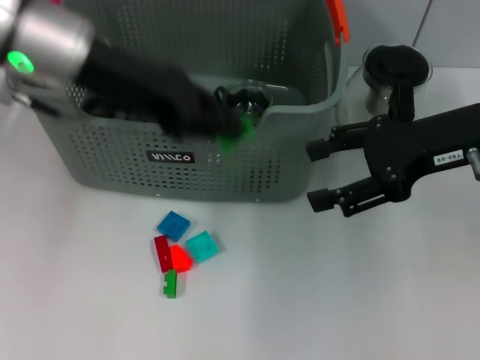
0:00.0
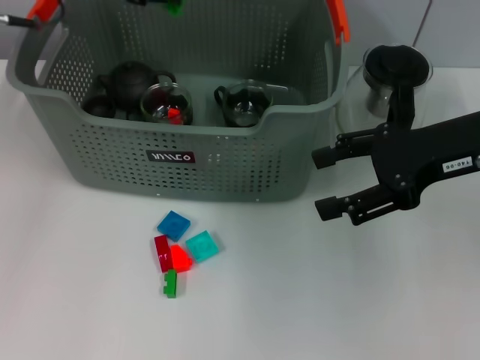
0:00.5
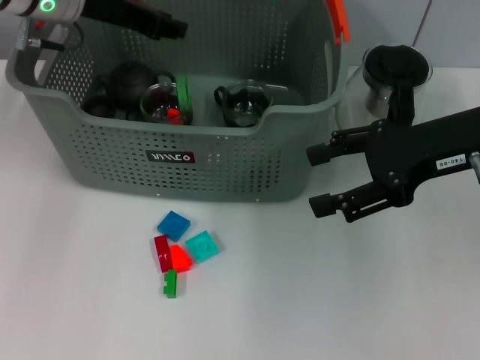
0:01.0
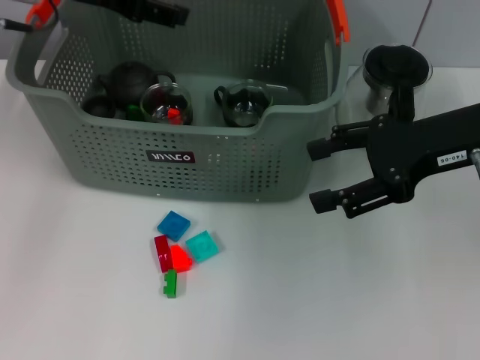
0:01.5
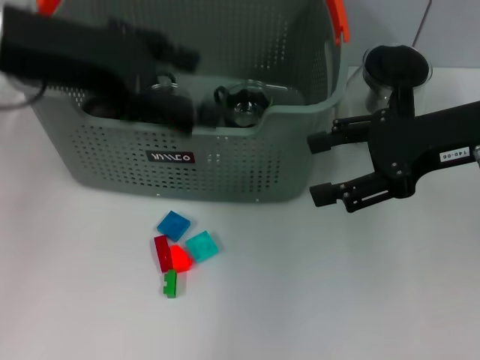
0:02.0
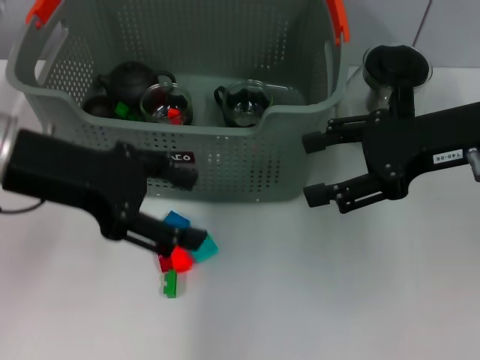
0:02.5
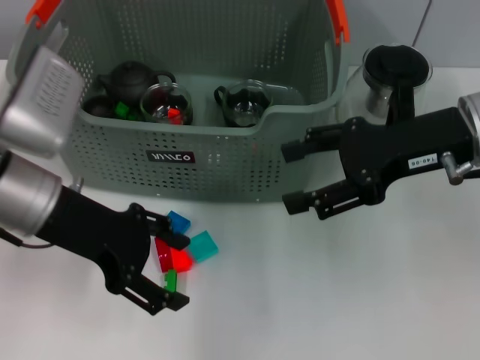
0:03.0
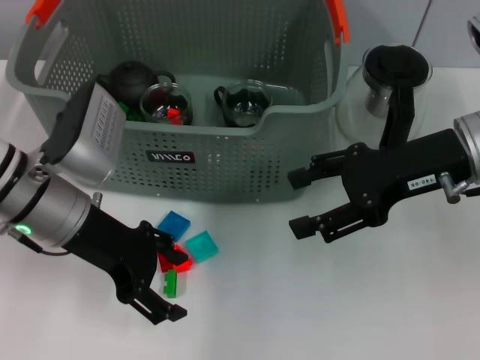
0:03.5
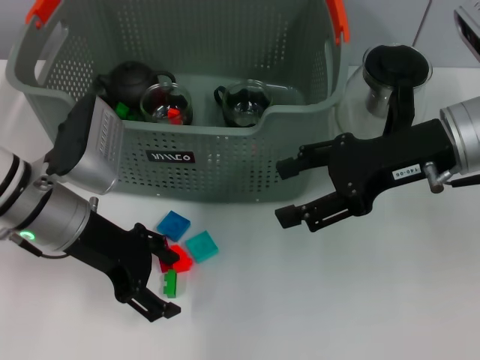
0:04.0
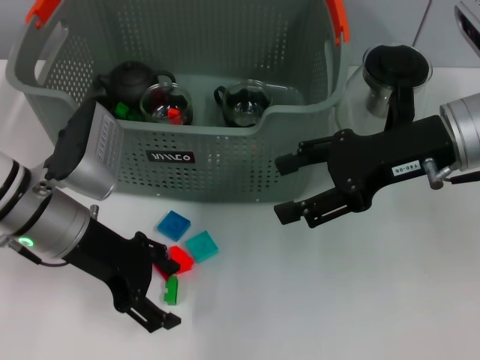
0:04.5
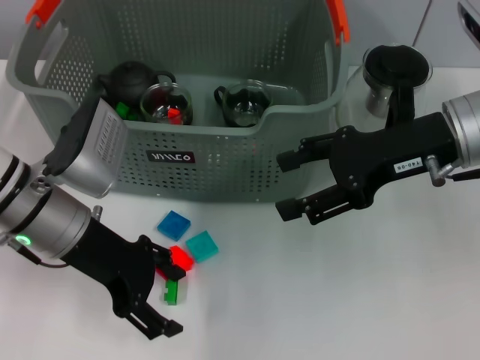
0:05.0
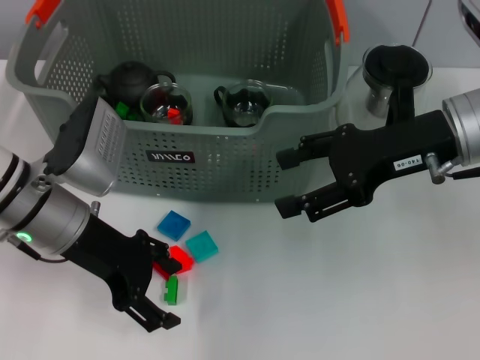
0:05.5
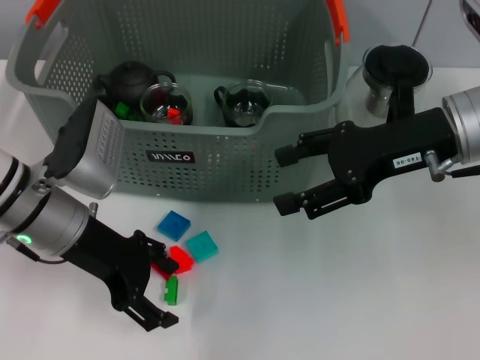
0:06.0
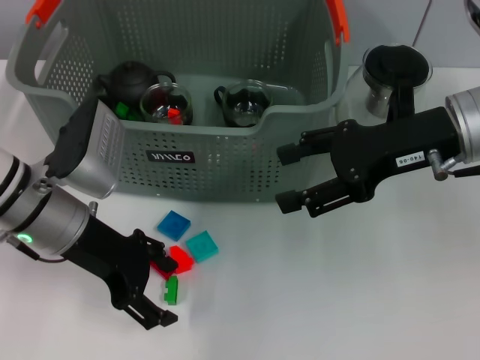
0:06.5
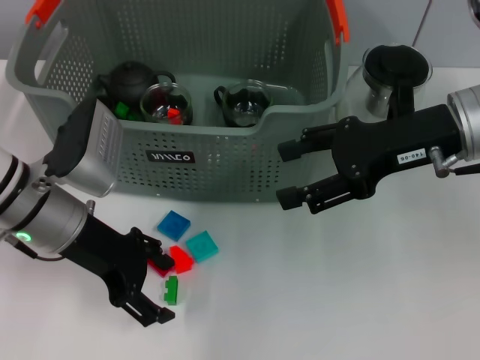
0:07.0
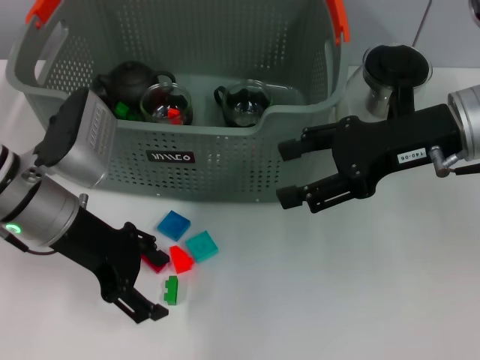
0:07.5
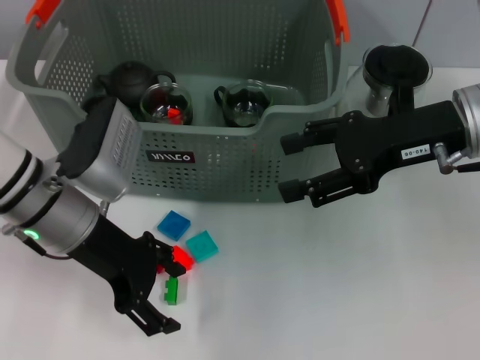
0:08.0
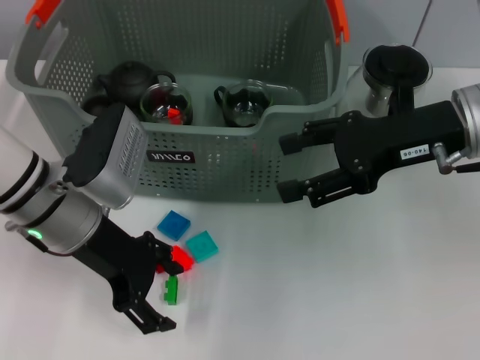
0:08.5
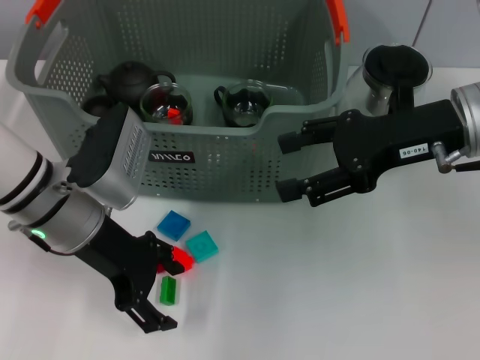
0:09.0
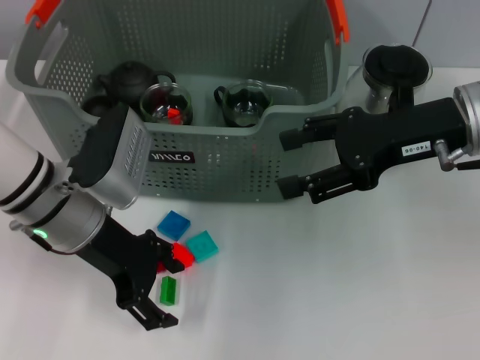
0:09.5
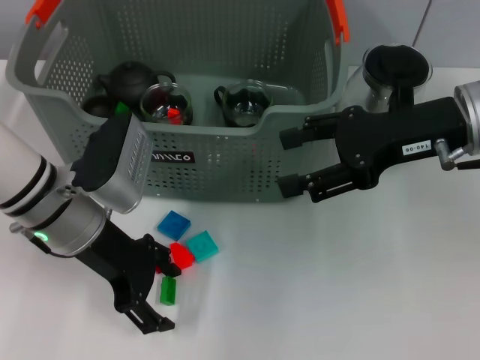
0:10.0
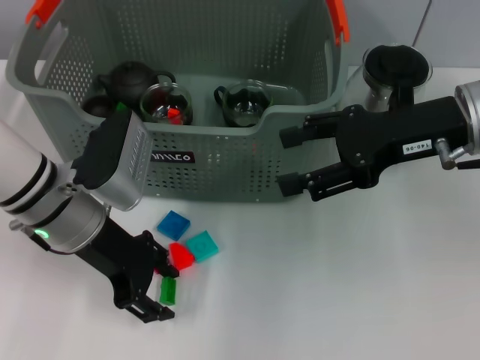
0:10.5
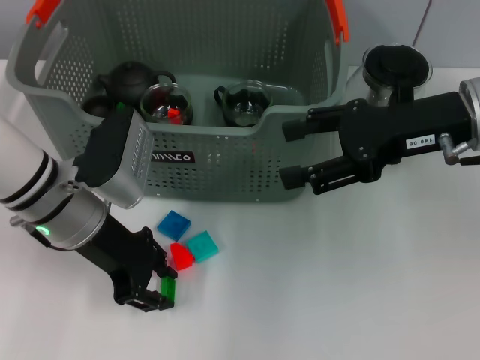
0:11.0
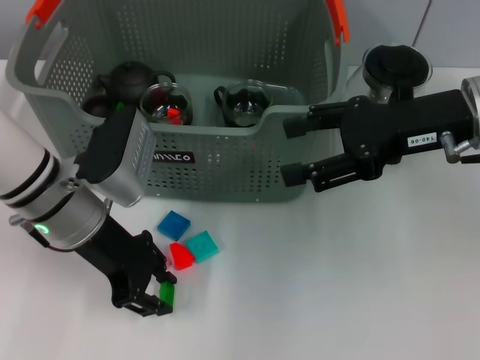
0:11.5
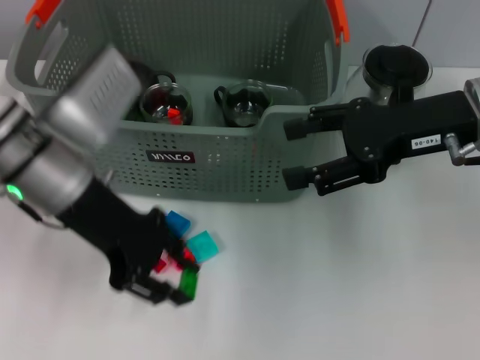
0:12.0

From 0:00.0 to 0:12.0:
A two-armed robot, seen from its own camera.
Task of the whole recording: pick up the teacup on the table and place it into the storage bin, pick up the block on the table and place it into the storage bin.
Step, from 0:00.0 to 0:01.0: Place the green block in the storage box with left gripper.
Step, from 0:01.5 to 0:11.5: Grasp the green block with left gripper.
From 0:00.0 to 0:02.0: The left gripper goes about 5 cm backward, and opens.
From 0:02.0 to 0:04.0: The left gripper heads downward, covering some 20 cm.
From 0:04.0 to 0:10.0: There are only small adjustments of the grippers.
From 0:10.0 to 0:12.0: The left gripper shifts approximately 5 cm upward, and closes its fingers.

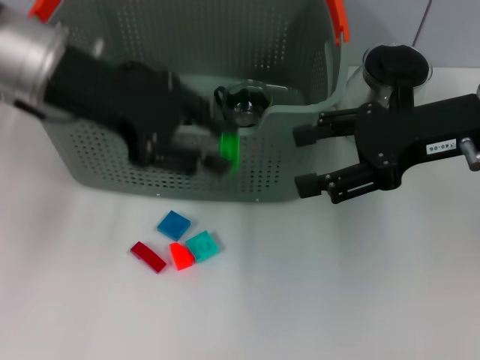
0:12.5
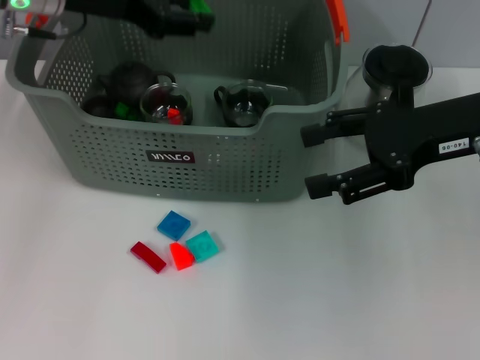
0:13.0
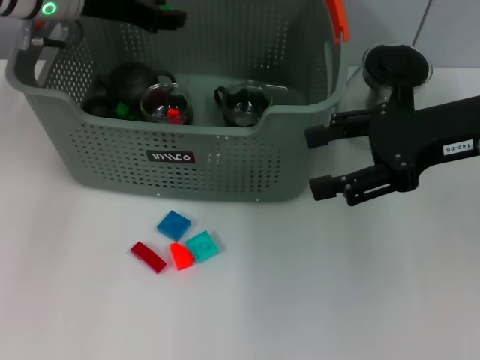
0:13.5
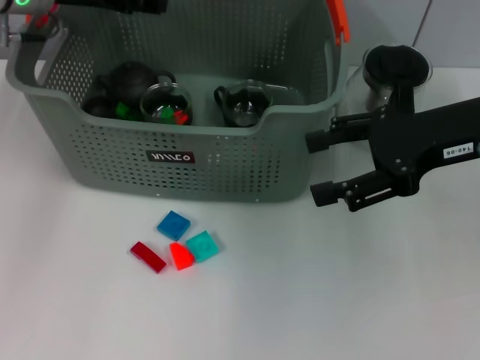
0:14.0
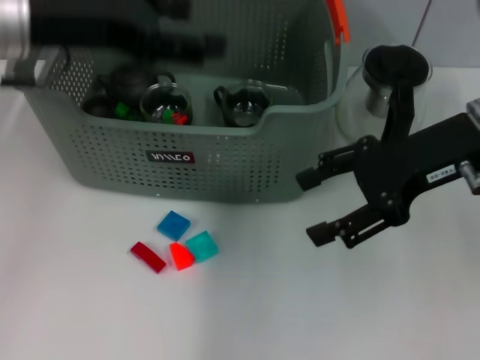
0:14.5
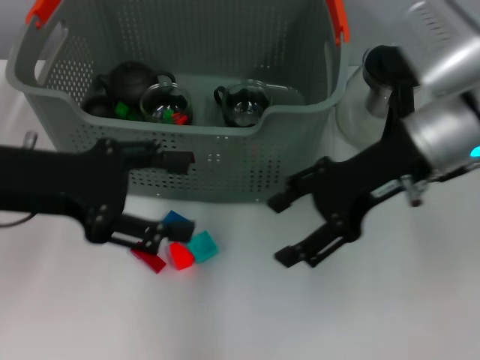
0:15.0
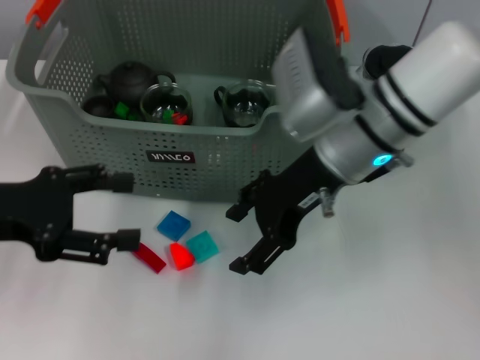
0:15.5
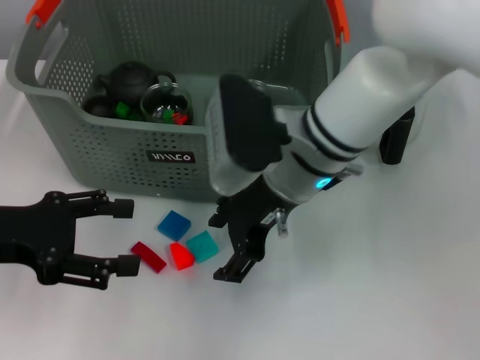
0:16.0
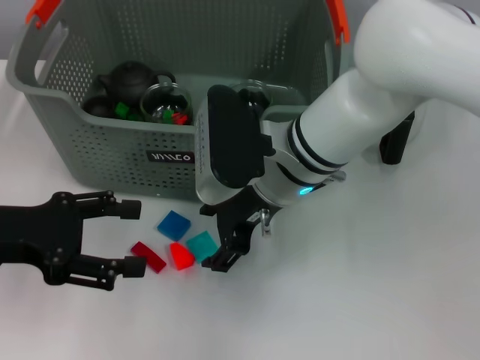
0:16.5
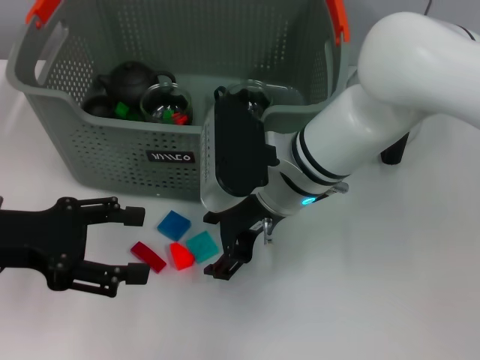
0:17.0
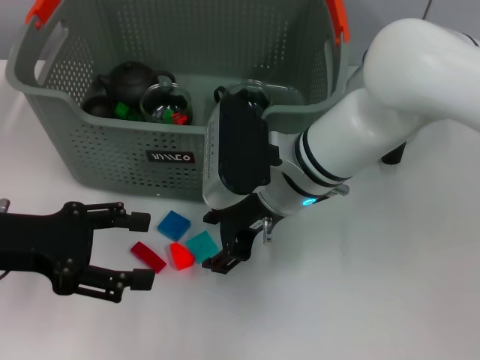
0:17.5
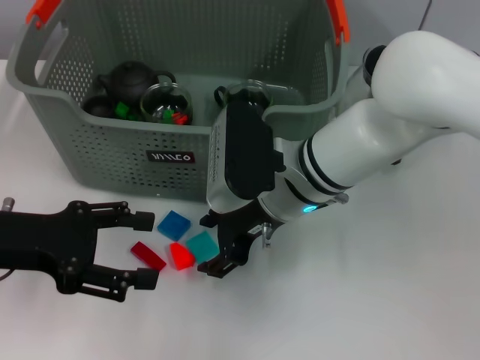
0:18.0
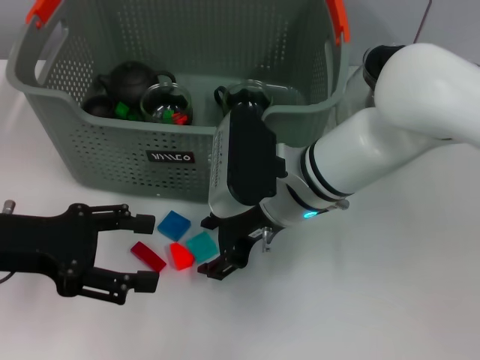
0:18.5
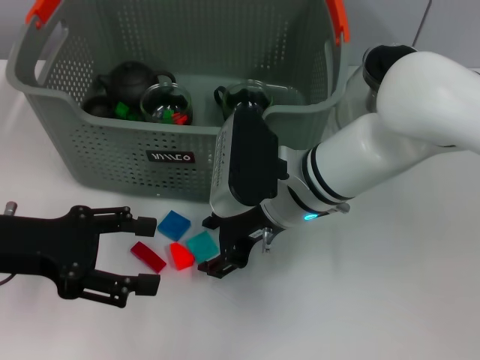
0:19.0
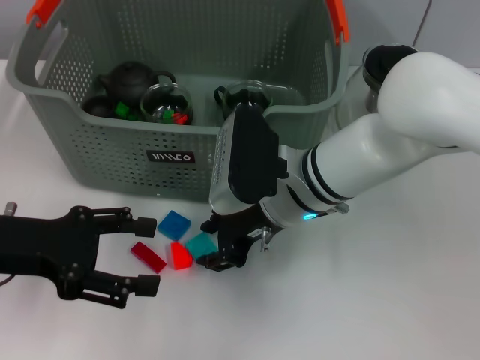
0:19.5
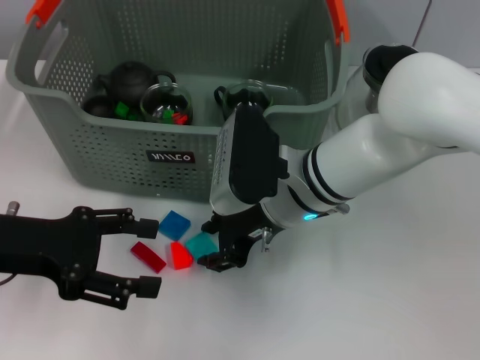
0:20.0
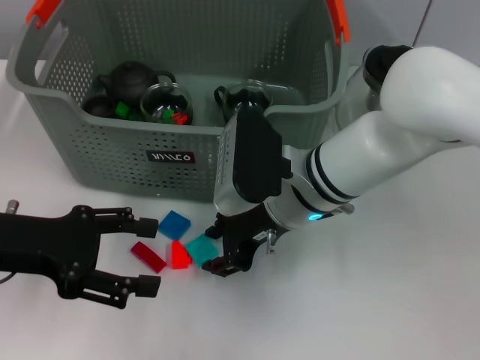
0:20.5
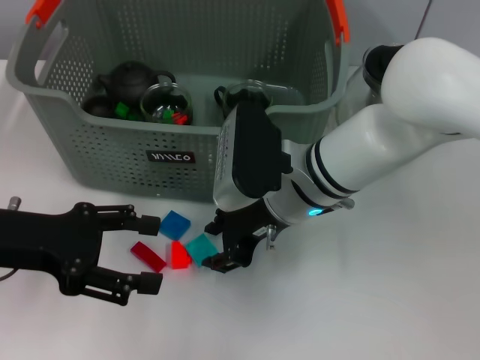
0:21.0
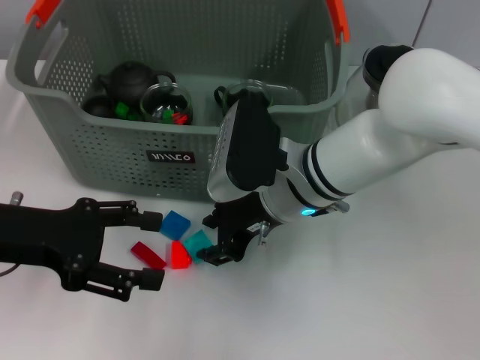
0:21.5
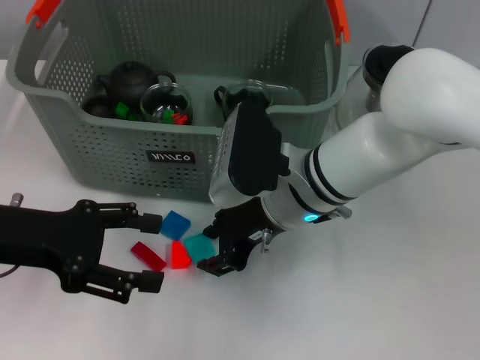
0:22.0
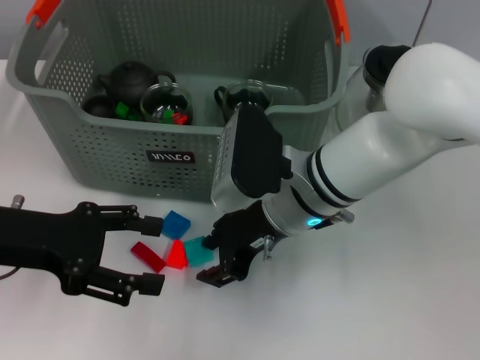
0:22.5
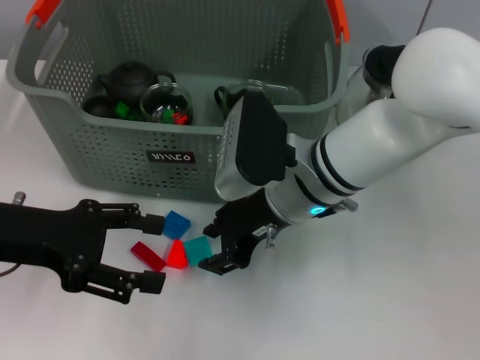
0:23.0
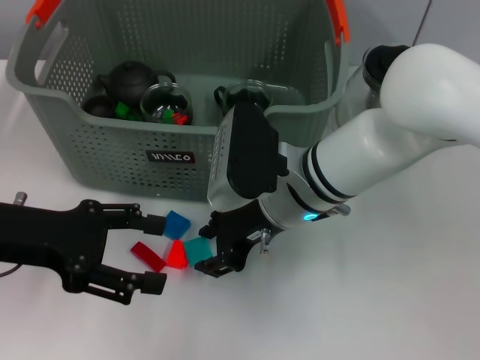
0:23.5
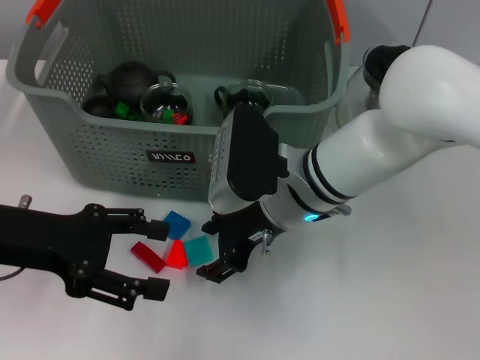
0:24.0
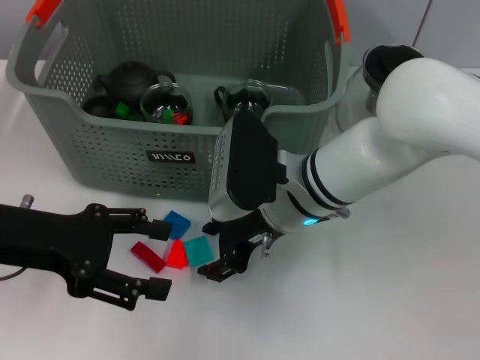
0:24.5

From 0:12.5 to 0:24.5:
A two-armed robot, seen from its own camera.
Task of the whole recording: pick up the teacup on the table and place it into the storage bin, pick up the block on the table and place it into the storage bin.
Step, from 0:12.5 to 0:14.0: Place the green block in the storage box with left gripper.
From 0:12.5 to 0:14.5: The left gripper goes forward and returns, roughly 10 cm each way, and opens.
From 0:14.5 to 0:16.5: The left gripper heads downward, backward and to the left, covering some 15 cm. The right gripper goes roughly 20 cm to the left.
From 0:18.5 to 0:20.5: Neither gripper changes place.
From 0:20.5 to 0:22.5: Both grippers stay about where they are.
From 0:22.5 to 0:24.5: The grippers move only a little.

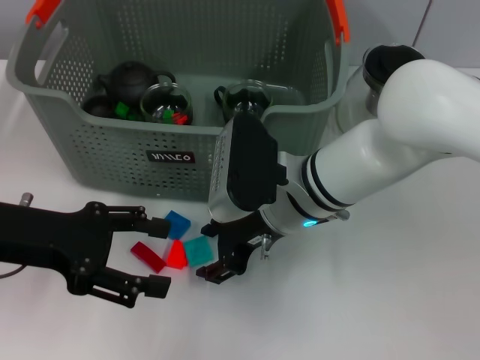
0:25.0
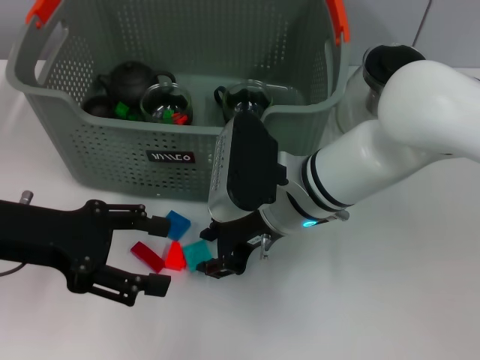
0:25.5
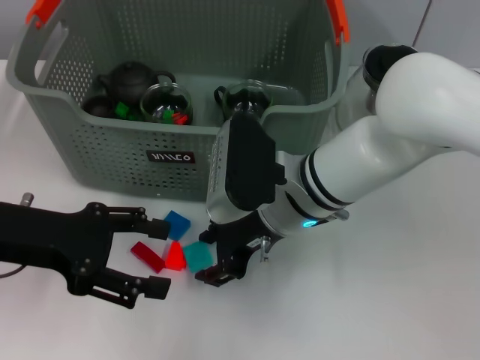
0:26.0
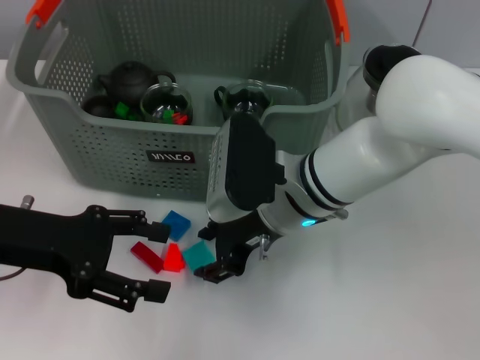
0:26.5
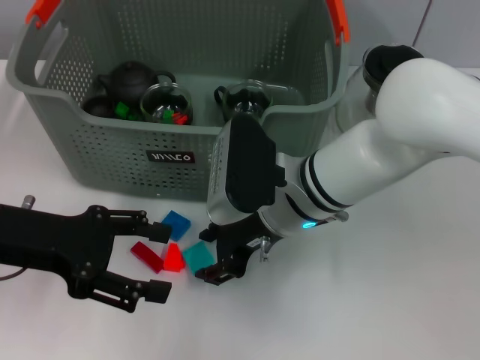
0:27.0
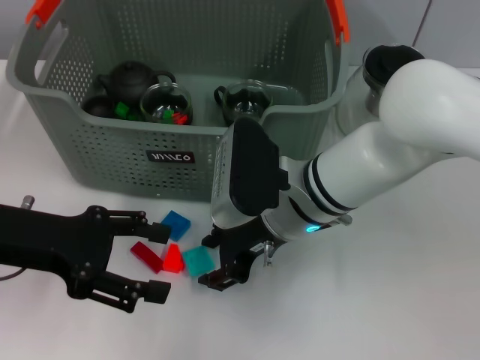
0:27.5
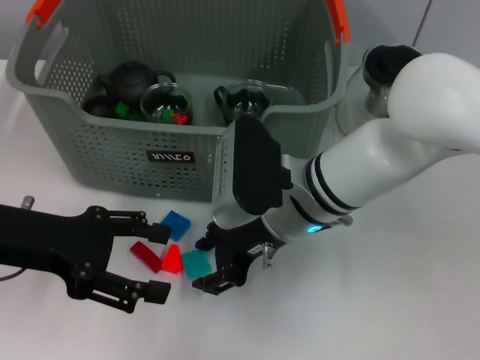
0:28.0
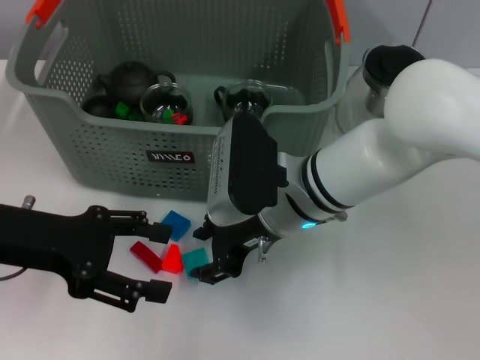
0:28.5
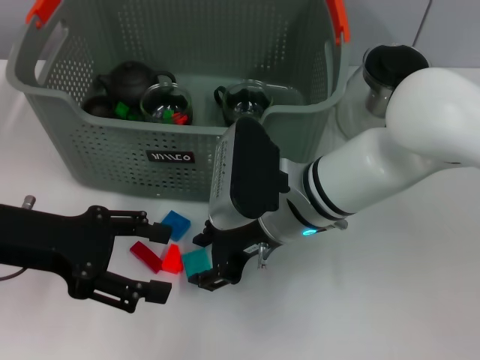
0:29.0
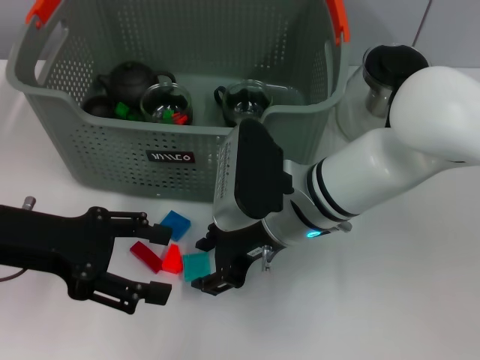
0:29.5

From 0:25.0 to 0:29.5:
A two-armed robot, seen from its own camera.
Task of the whole recording: pick up the teacup on the table and place it into the storage bin, pick up the block on the table and place it into the storage bin.
From 0:25.0 to 0:29.5: Both grippers stay put.
